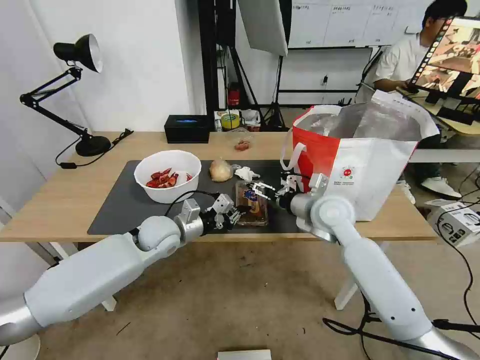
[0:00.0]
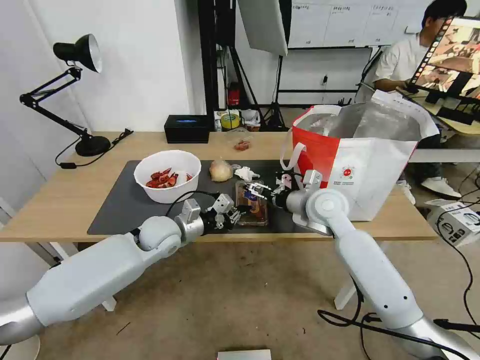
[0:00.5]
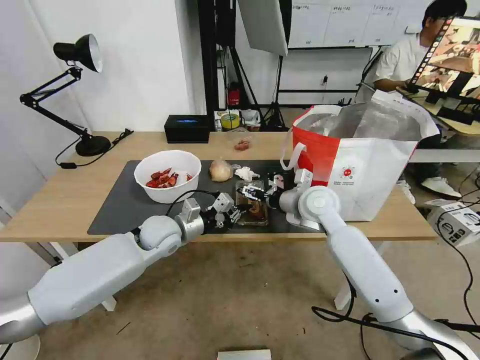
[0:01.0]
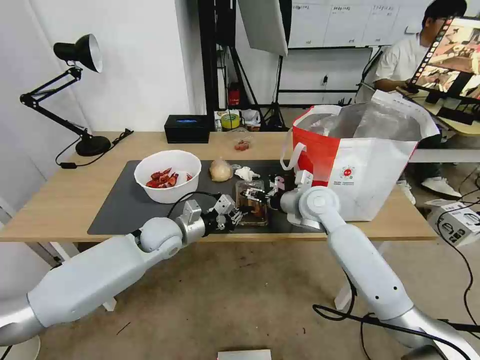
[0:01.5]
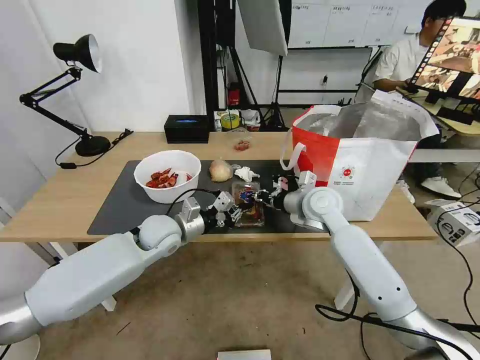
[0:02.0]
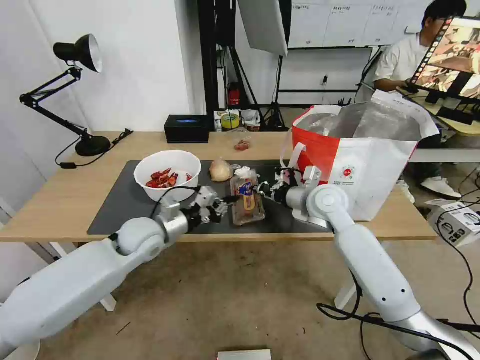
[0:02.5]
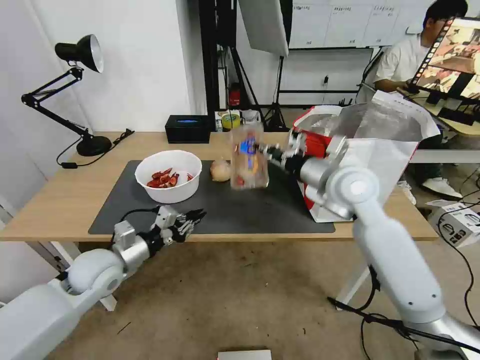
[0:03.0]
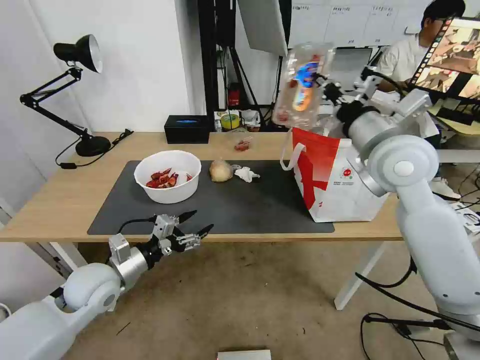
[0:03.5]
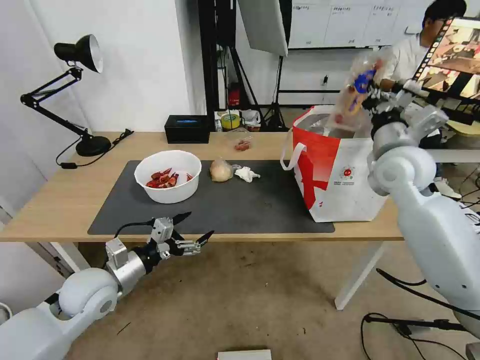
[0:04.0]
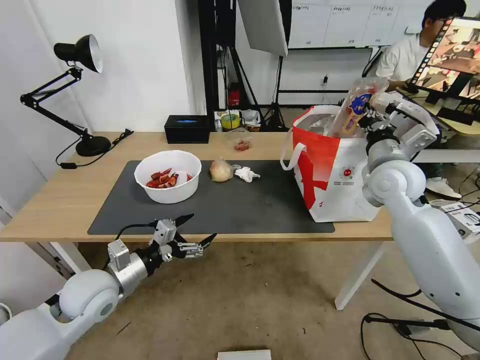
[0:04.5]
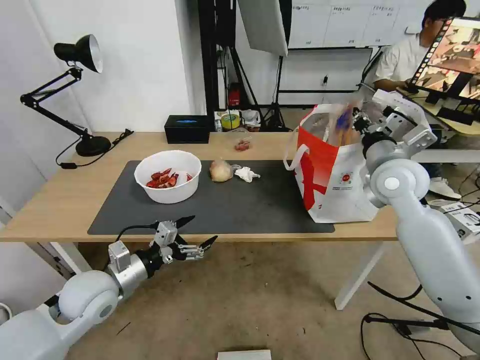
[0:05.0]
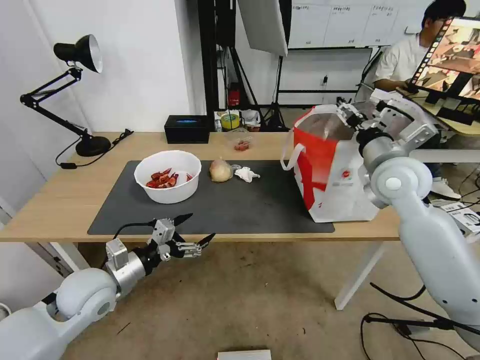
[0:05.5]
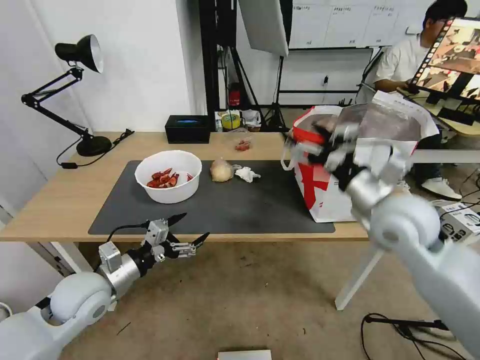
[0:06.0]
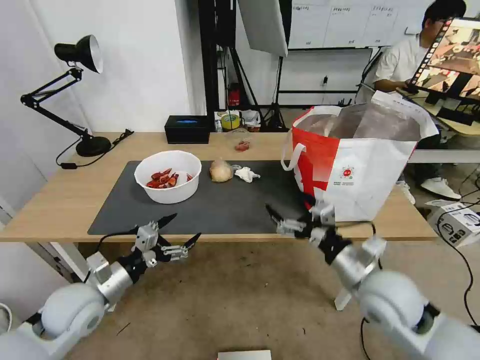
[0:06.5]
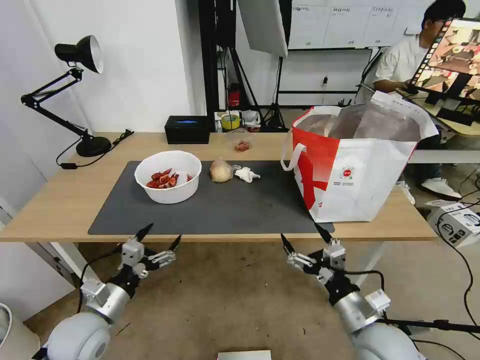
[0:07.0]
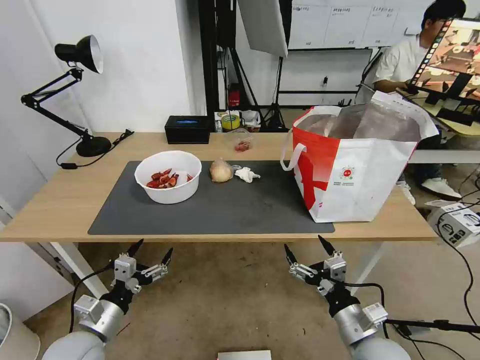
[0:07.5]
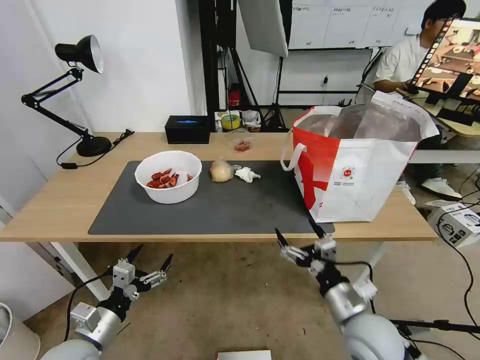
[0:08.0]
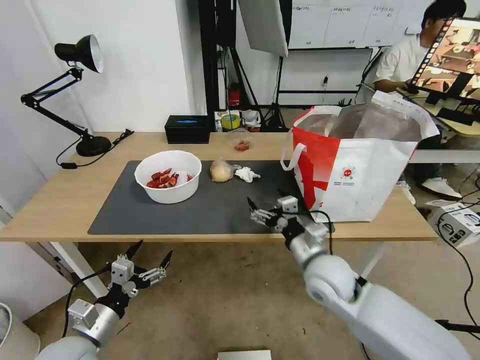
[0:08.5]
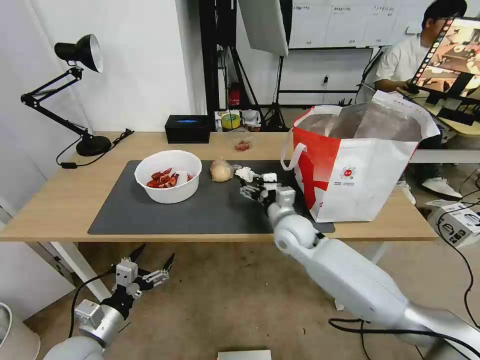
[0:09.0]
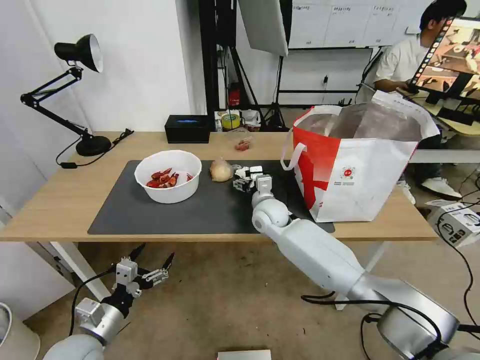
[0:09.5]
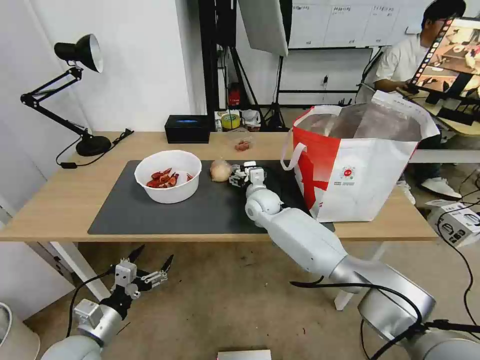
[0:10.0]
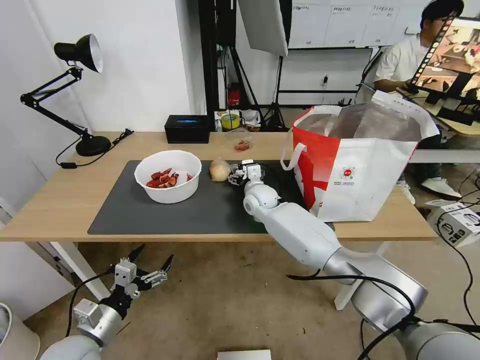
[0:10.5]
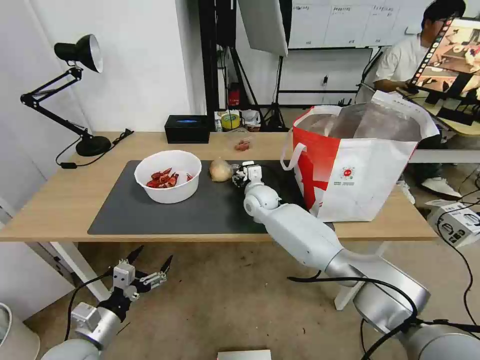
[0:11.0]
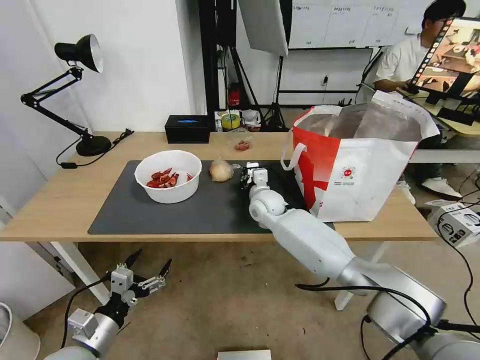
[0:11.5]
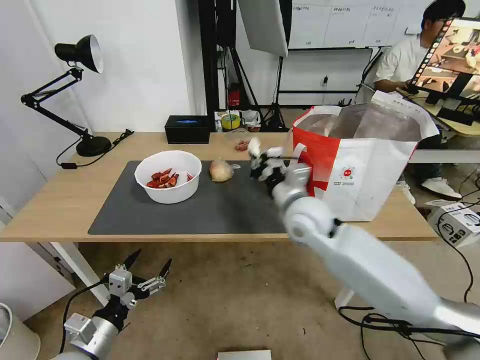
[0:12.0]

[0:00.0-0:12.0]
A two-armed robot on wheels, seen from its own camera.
Task of the whole recording: Pick up the trash from the table and place it into the takeout bag.
0:00.0 to 0:02.0: The right gripper closes its fingers.
0:02.0 to 0:04.0: The right gripper heads upward and to the right, covering some 15 cm, while the left gripper goes approximately 15 cm backward and to the left, and opens its fingers.
0:04.0 to 0:06.0: The right gripper shifts roughly 10 cm backward, and opens up.
0:06.0 to 0:08.0: The left gripper heads backward and downward, covering approximately 15 cm. The right gripper is displaced downward and backward by roughly 25 cm.
0:08.0 to 0:10.0: The right gripper goes some 40 cm forward and to the left.
0:10.0 to 0:12.0: The right gripper heads backward, upward and to the right, covering some 15 cm, and closes.

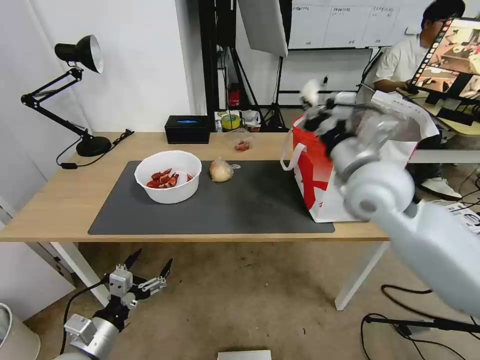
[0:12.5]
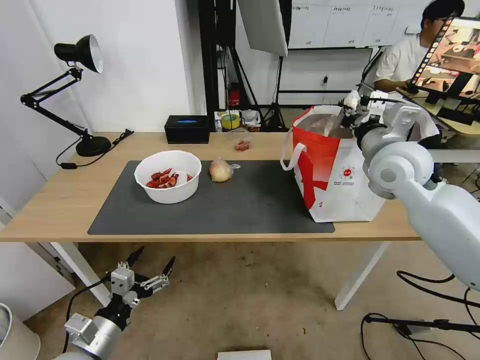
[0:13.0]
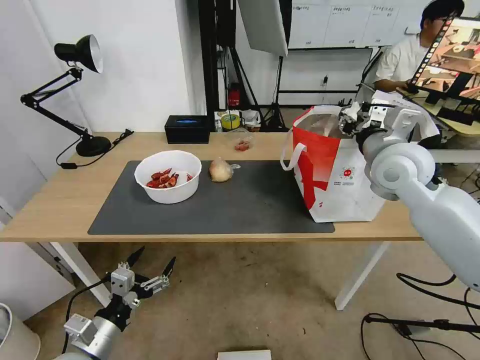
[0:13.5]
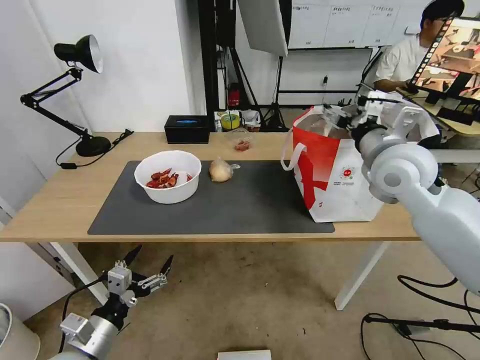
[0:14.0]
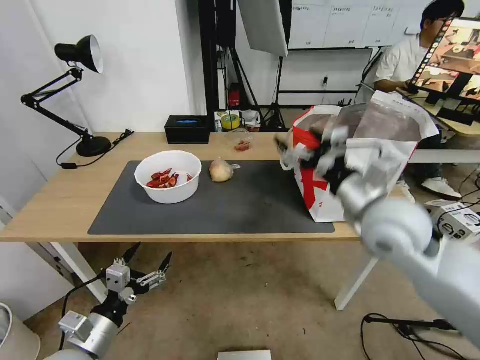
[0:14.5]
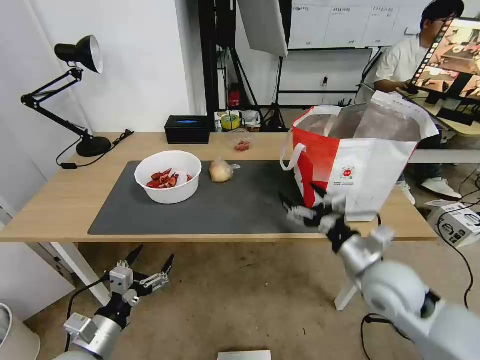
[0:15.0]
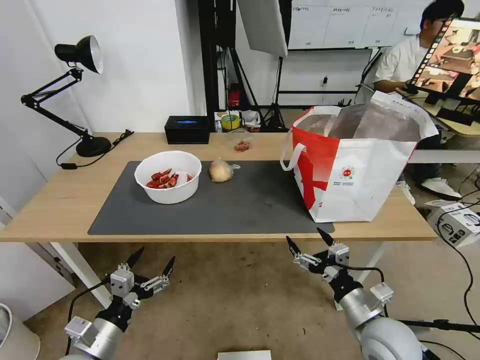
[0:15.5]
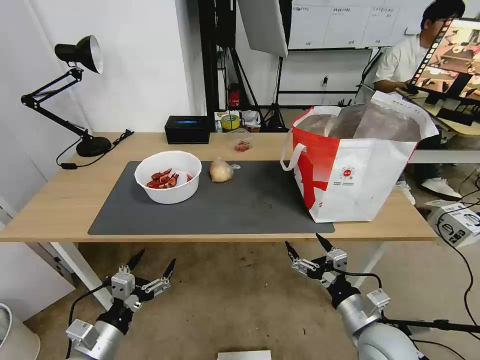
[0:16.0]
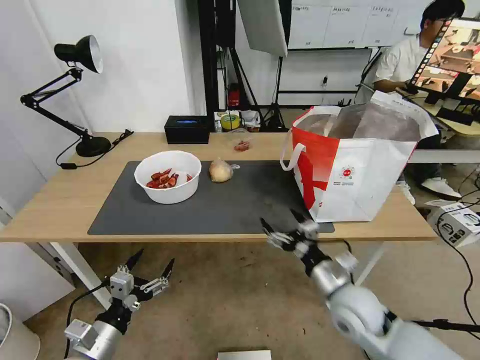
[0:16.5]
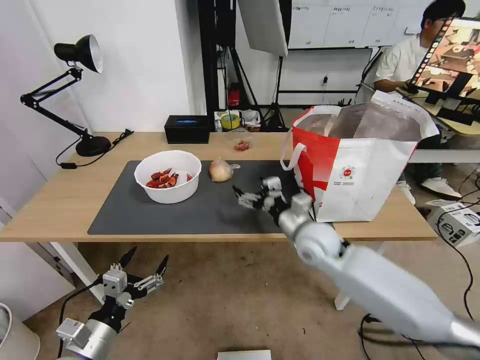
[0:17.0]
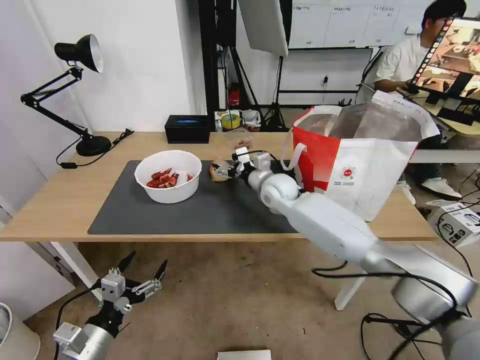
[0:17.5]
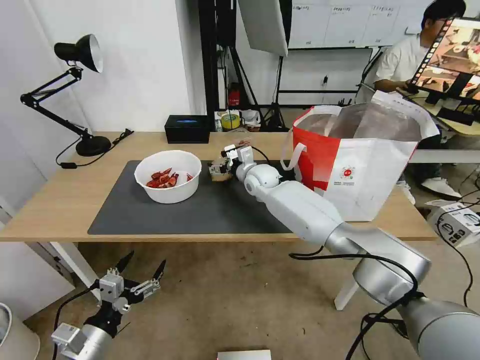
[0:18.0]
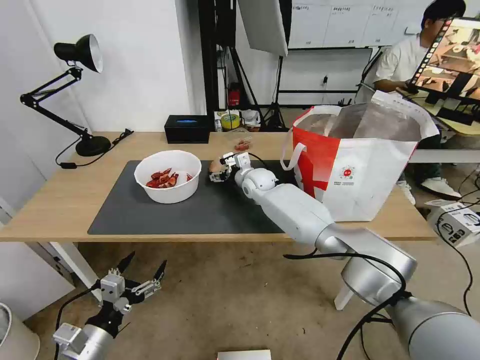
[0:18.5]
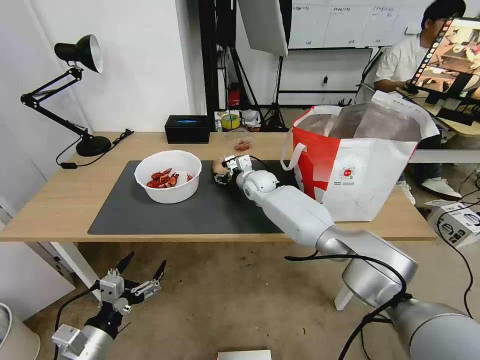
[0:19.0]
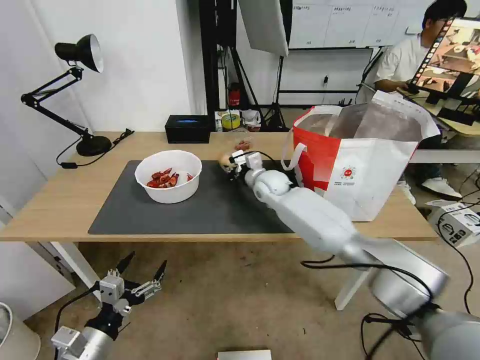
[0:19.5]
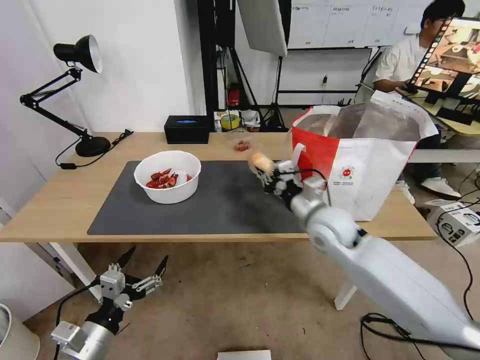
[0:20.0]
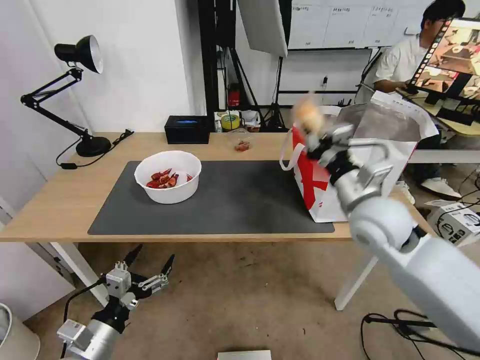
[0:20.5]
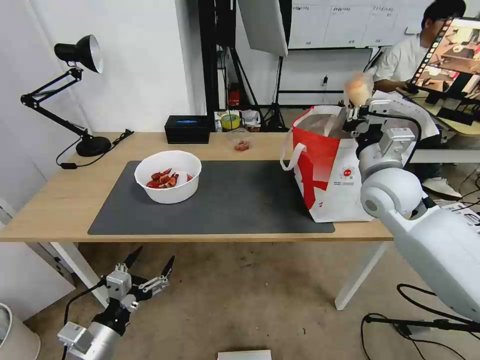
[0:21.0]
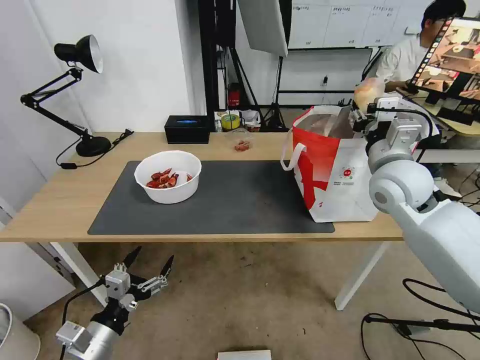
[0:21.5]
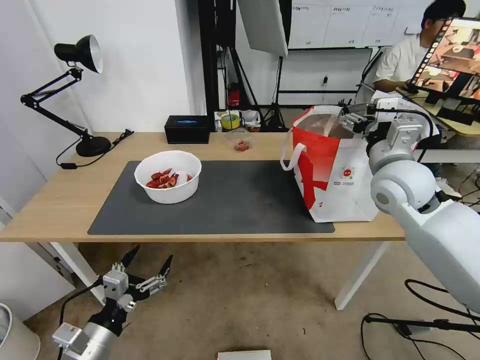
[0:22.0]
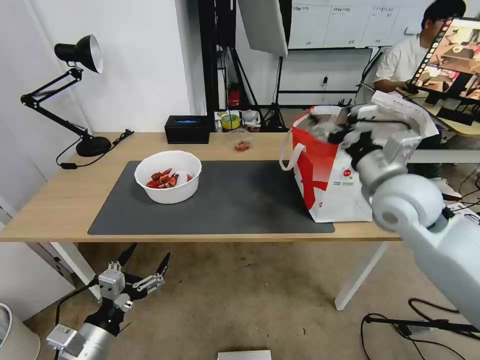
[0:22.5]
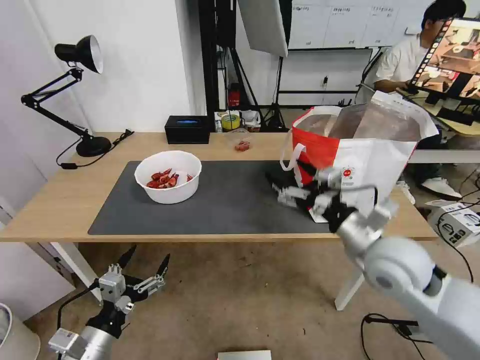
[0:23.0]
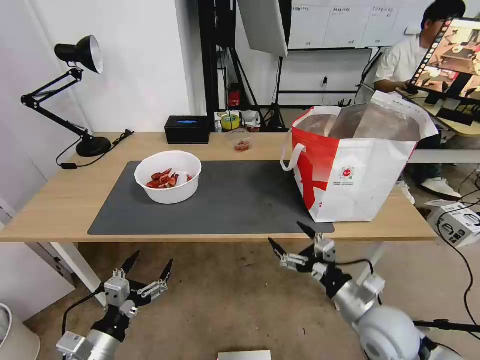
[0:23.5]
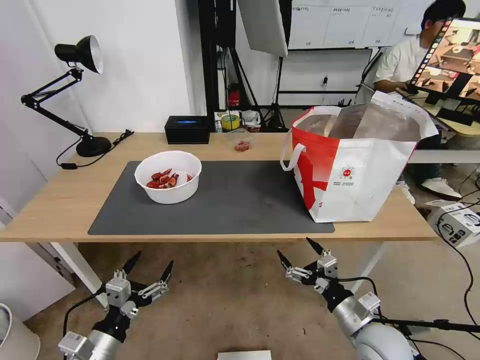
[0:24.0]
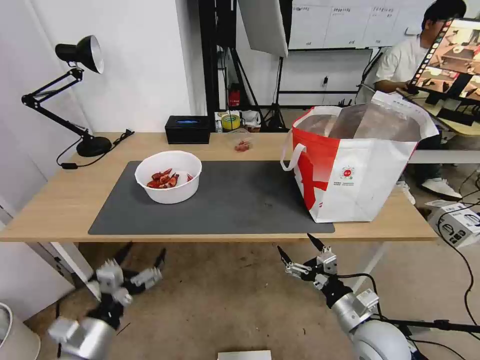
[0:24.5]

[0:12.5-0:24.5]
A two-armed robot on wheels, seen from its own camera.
Task of the whole recording: Pick up the trash from the table and place it into the takeout bag.
0:12.5 to 0:14.5: The right gripper shifts roughly 5 cm backward, and opens its fingers.
0:14.5 to 0:16.5: The right gripper heads downward, covering approximately 20 cm.
0:16.5 to 0:18.5: The right gripper moves forward and to the left, approximately 35 cm.
0:18.5 to 0:20.5: The right gripper shifts approximately 35 cm backward, to the right and upward, and closes.
0:20.5 to 0:22.5: The right gripper moves upward, roughly 5 cm, and opens its fingers.
0:22.5 to 0:24.5: The right gripper is displaced downward and backward by approximately 30 cm.

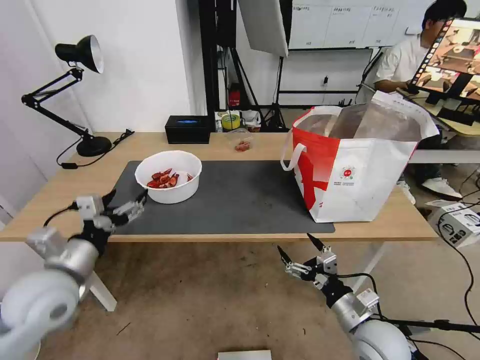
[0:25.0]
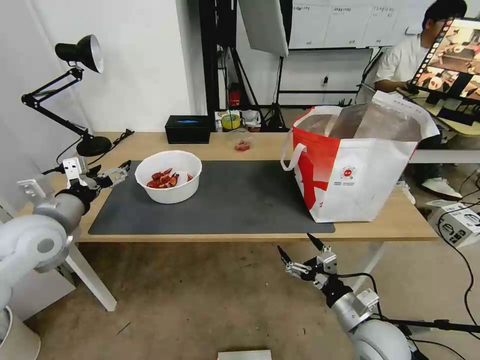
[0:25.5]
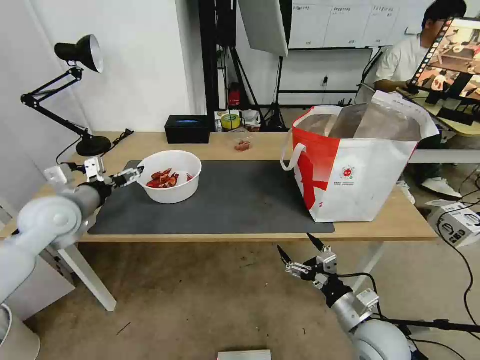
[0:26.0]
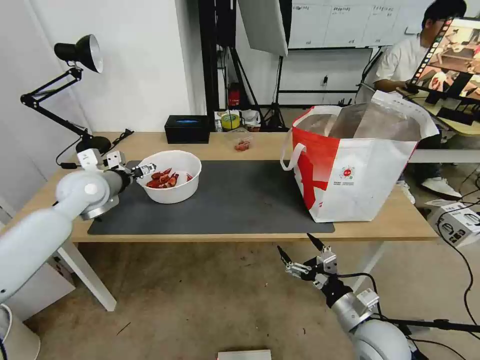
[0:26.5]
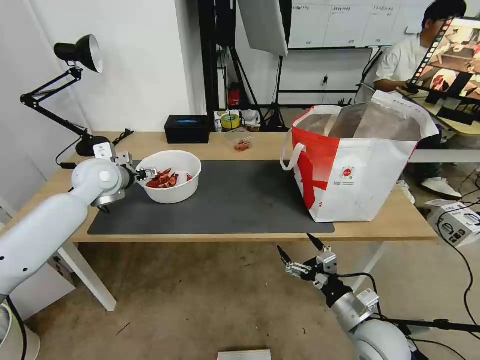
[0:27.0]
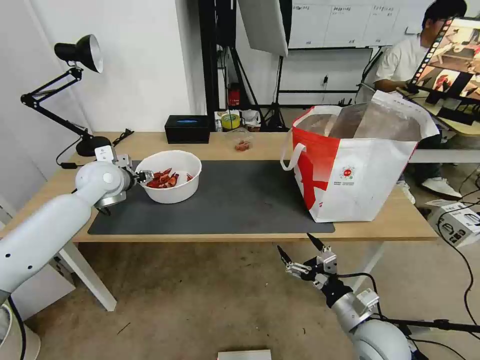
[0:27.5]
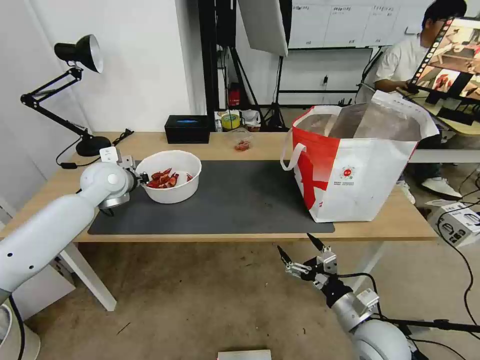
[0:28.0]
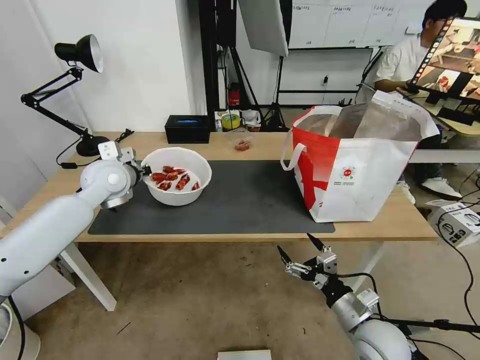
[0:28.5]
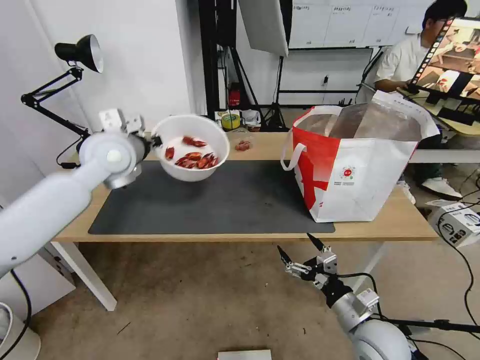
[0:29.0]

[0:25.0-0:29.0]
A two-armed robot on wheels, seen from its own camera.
Task of the whole recording: Pick up the trash from the table and place it into the takeout bag.
0:25.0 to 0:27.0: The left gripper moves forward, approximately 25 cm.
0:27.0 to 0:29.0: The left gripper shifts roughly 10 cm upward and to the right, and closes up.
